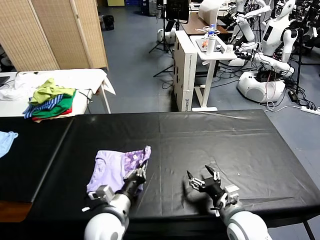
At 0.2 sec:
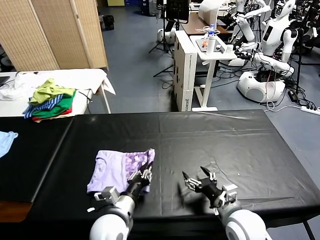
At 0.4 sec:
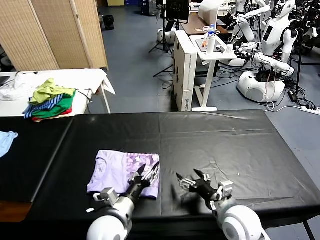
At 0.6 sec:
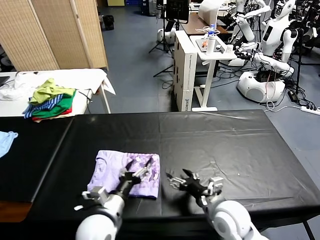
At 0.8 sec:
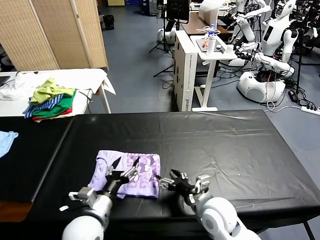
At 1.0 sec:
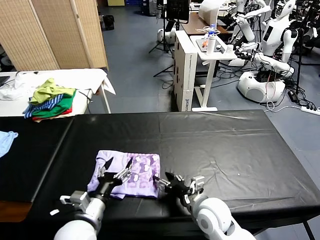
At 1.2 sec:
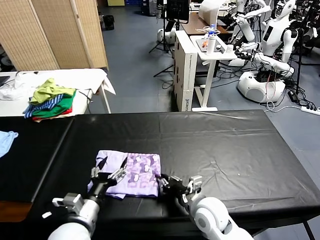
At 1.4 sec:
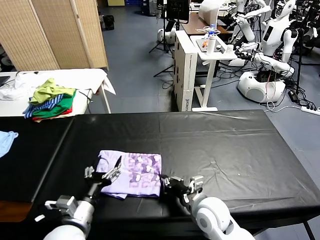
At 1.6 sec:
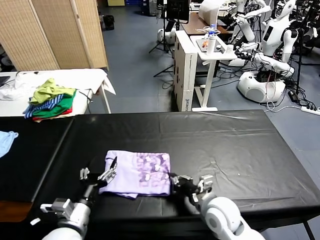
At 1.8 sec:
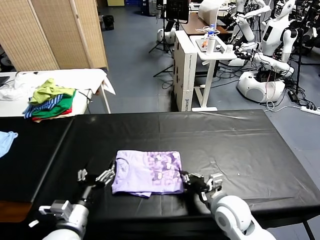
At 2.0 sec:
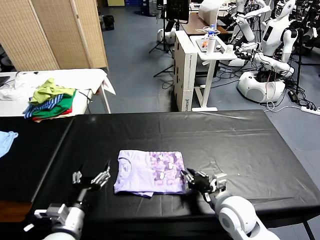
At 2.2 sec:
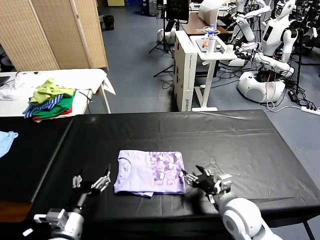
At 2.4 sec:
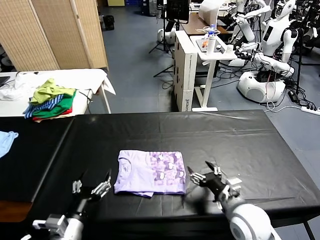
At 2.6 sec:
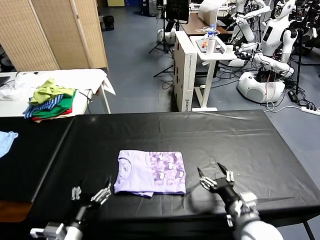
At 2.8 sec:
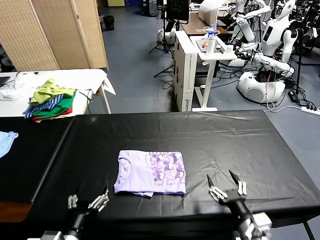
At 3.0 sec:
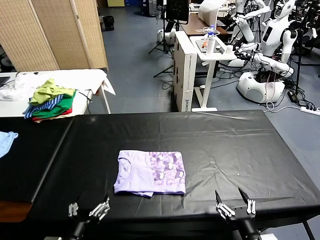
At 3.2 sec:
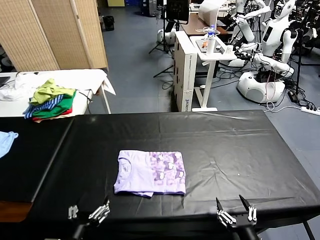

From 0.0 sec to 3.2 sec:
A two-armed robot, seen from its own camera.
Task of the whole recording: fold and organize the clothes.
Step, from 0.4 sec to 2.2 sec: Drag the clothes to the center of the table.
From 0.0 sec to 1.6 sec: The two grippers go about 5 cm to the left. The left gripper opens. Meanwhile the right gripper closes.
From 1.6 sec to 3.2 sec: The right gripper is displaced backward and to the right by about 20 cm, and opens, while the left gripper travels backward by some 10 cm.
